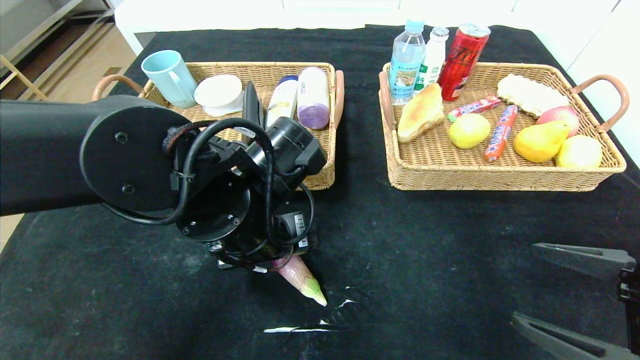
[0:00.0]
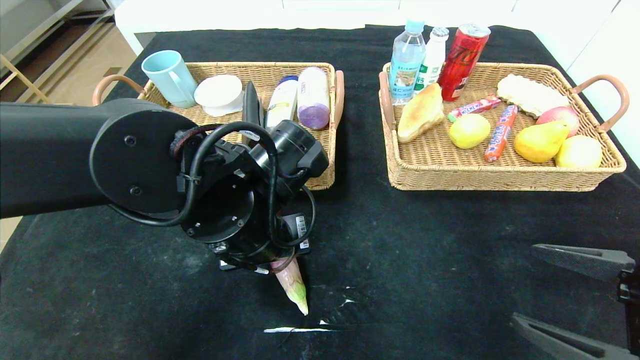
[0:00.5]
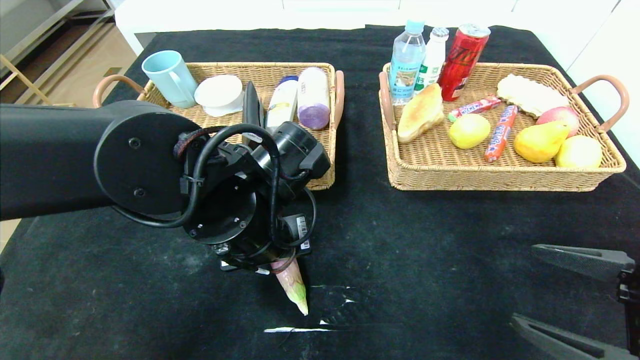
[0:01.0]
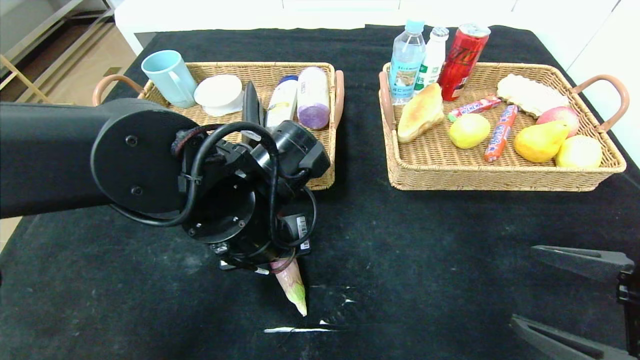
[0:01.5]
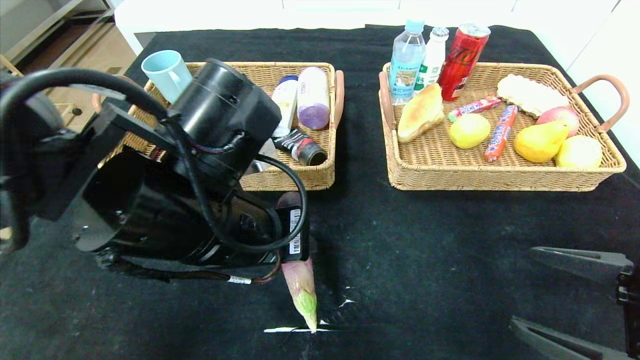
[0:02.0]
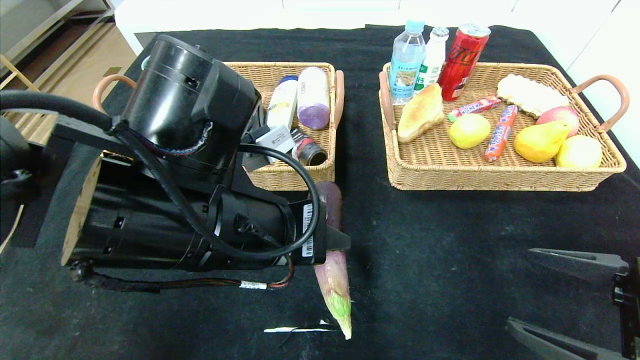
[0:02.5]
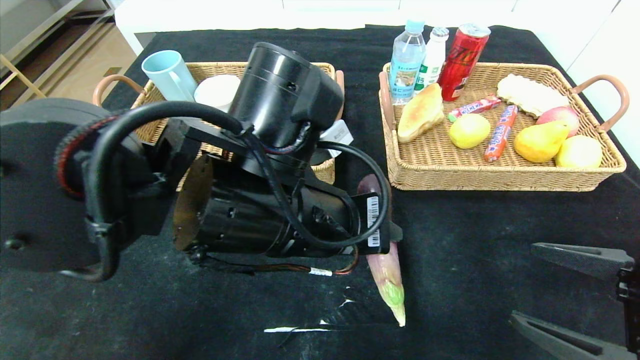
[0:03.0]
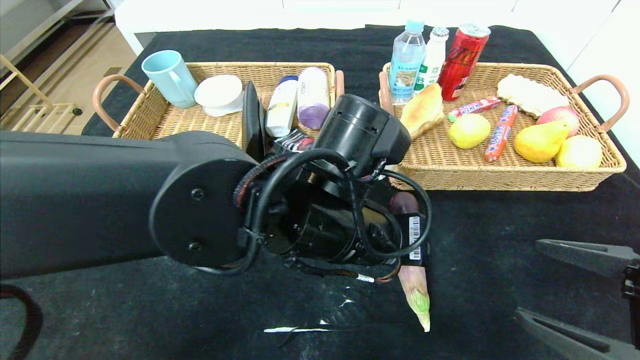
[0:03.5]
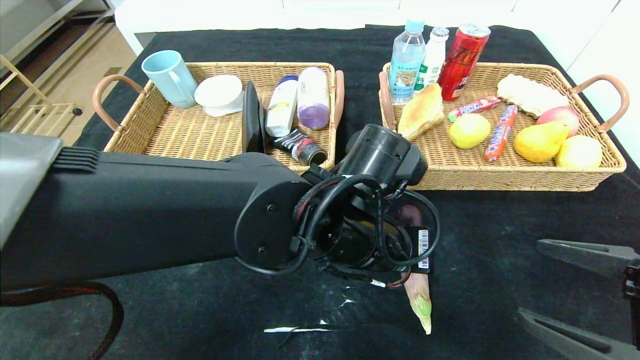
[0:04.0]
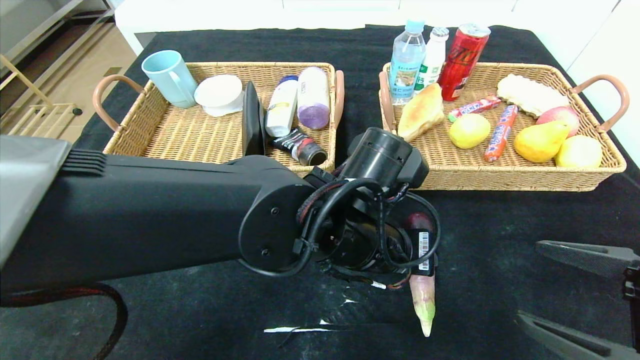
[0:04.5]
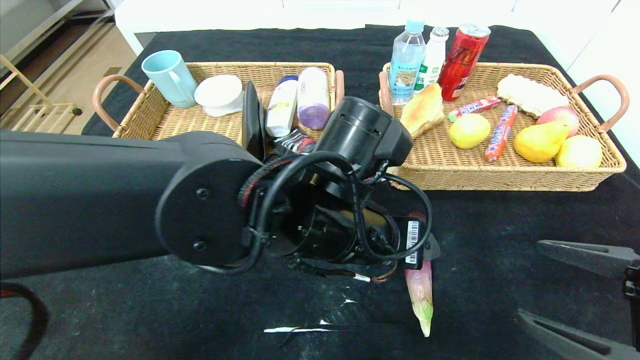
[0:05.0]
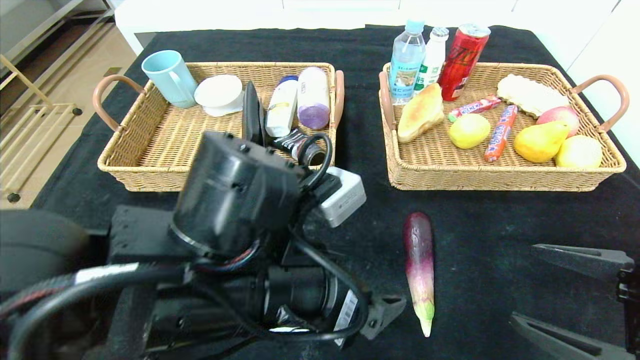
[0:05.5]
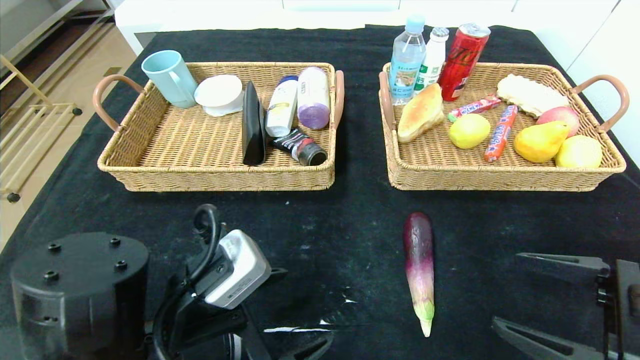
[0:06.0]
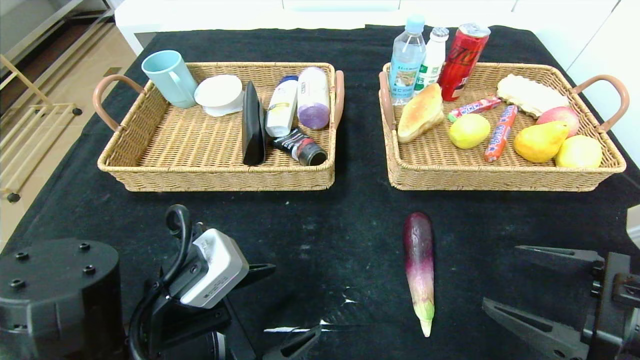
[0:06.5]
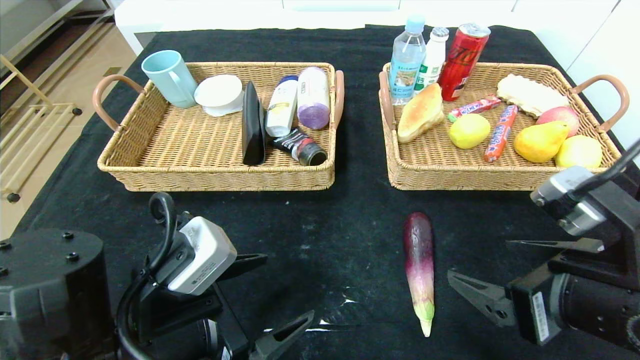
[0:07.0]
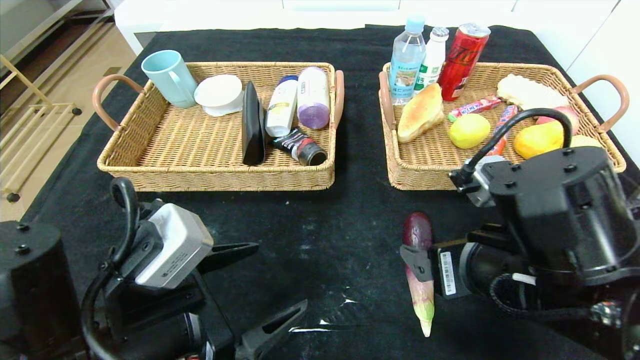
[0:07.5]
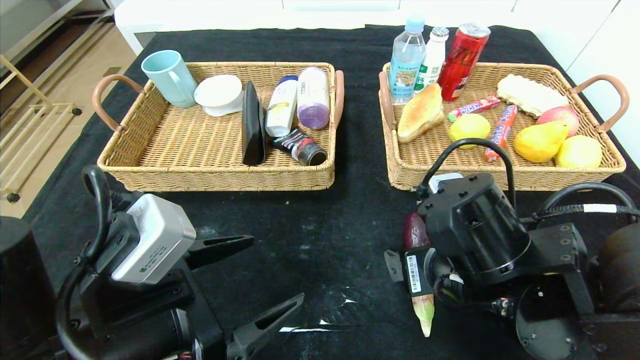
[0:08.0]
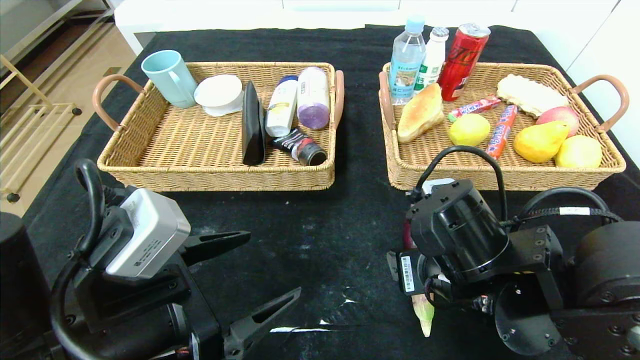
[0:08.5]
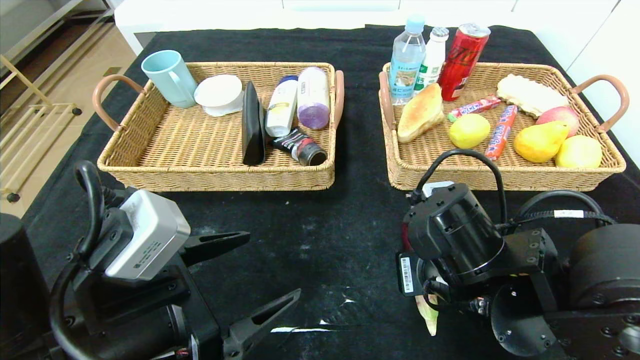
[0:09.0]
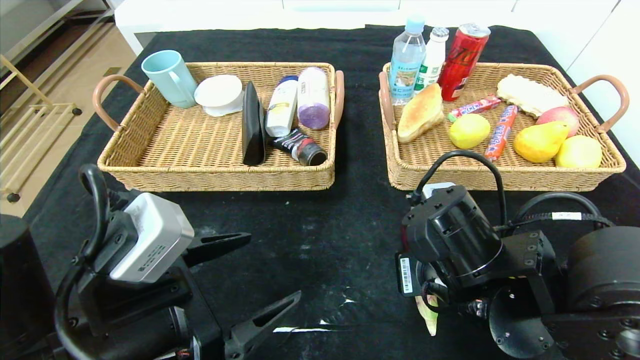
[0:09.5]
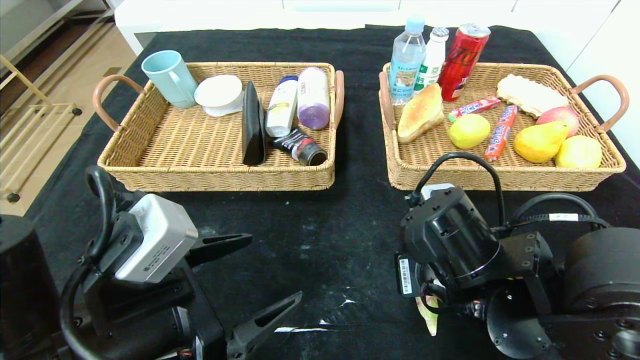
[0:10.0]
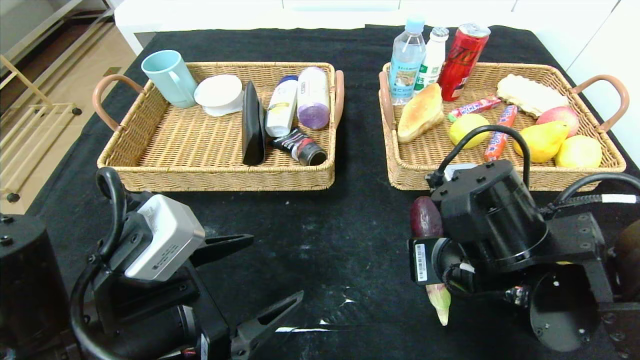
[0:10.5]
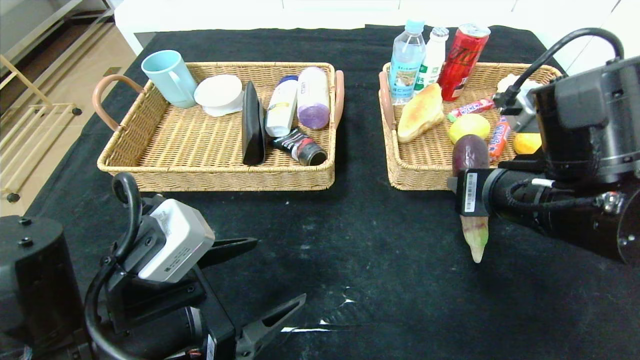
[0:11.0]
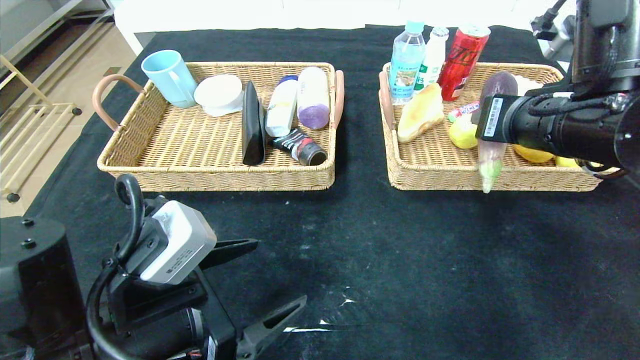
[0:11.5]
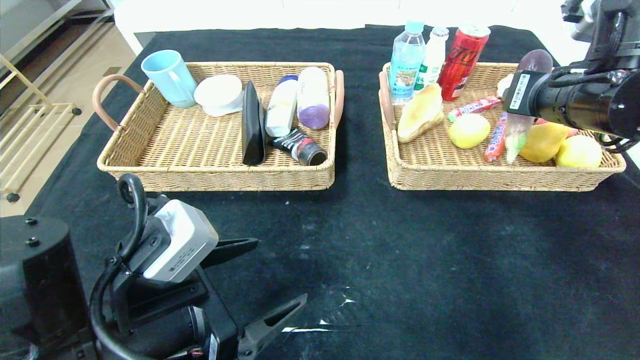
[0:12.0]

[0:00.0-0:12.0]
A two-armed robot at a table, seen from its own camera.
Step, 0:00.0 to 0:05.0: Place the eggplant in the center of the table.
0:00.0 to 0:02.0: The left gripper changes place by approximately 5 cm, and closes up.
0:02.0 to 0:04.0: The left gripper heads to the right and downward, covering about 15 cm.
0:04.0 to 0:06.0: The left gripper moves to the left and backward, roughly 20 cm, and opens its fingers.
0:06.0 to 0:08.0: The right gripper heads to the left and forward, covering approximately 15 cm.
0:08.0 to 0:10.0: The right gripper closes.
0:10.0 to 0:12.0: The right gripper travels upward, to the right and forward by some 20 cm.

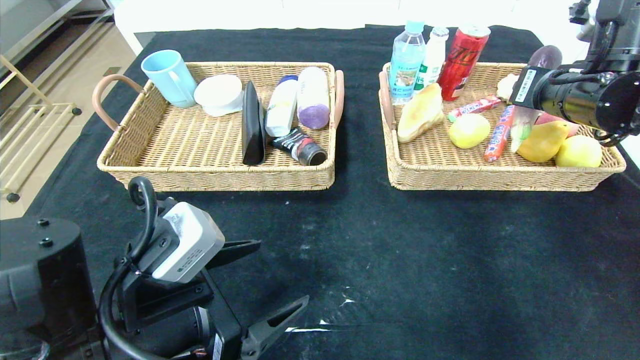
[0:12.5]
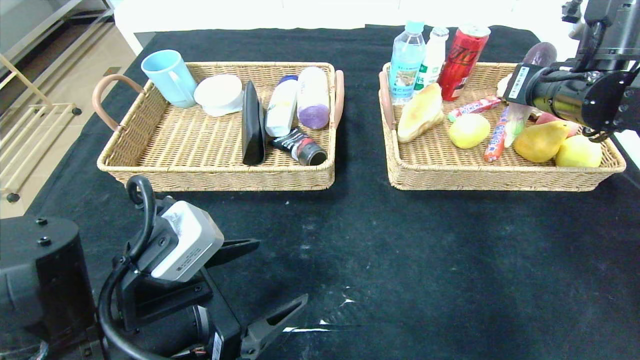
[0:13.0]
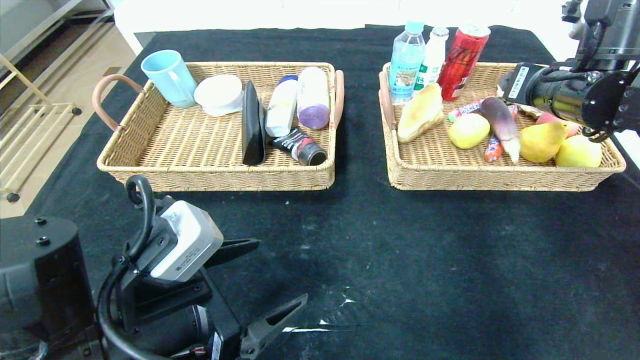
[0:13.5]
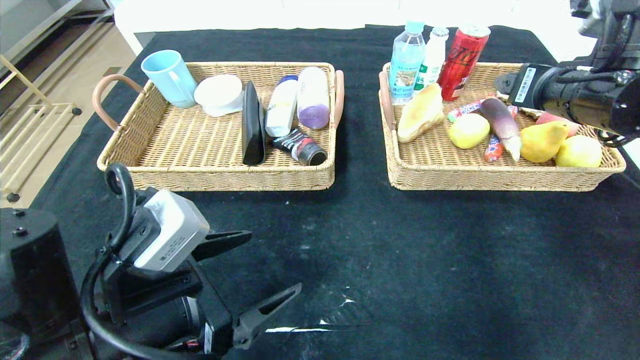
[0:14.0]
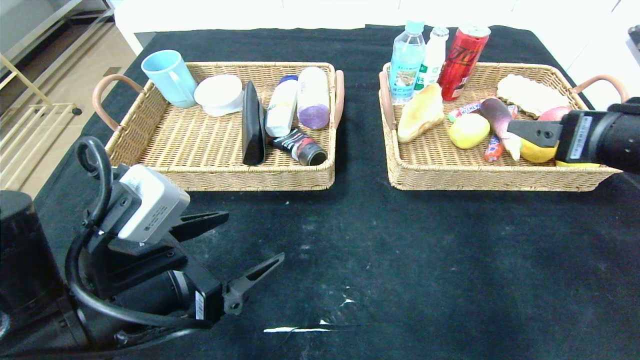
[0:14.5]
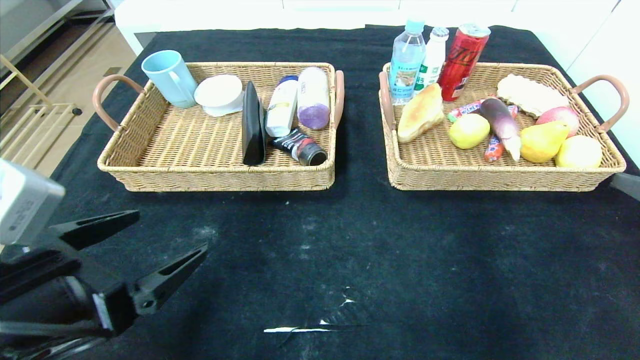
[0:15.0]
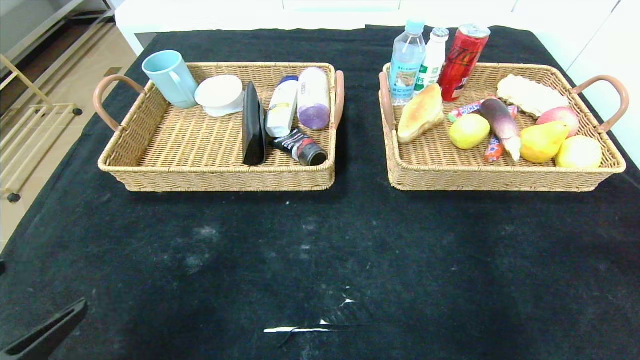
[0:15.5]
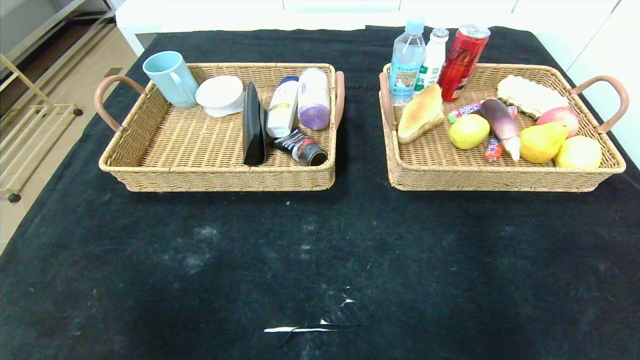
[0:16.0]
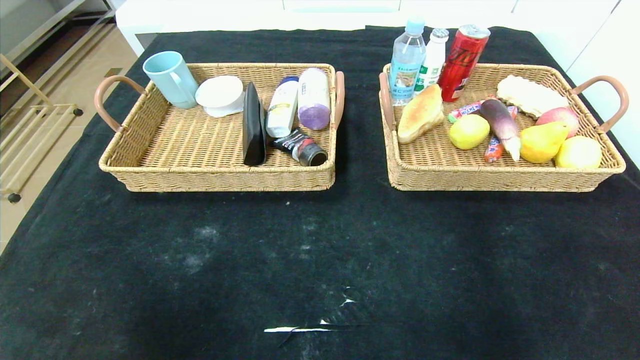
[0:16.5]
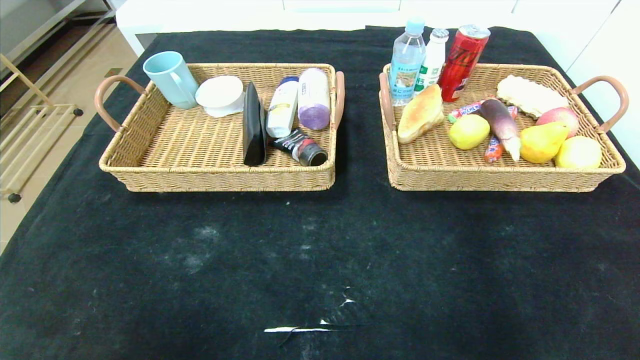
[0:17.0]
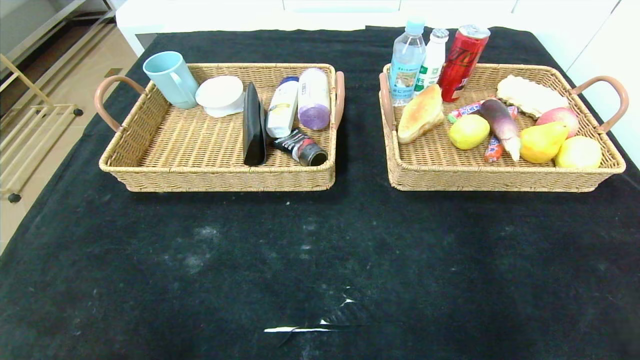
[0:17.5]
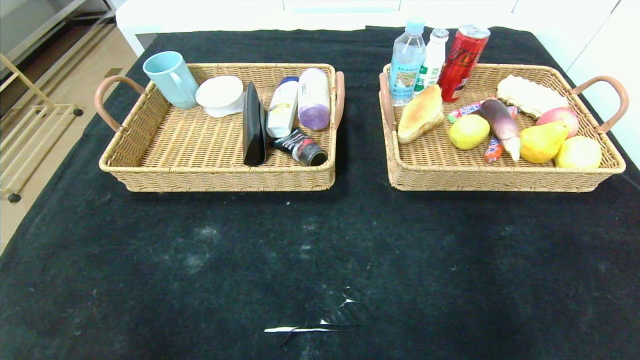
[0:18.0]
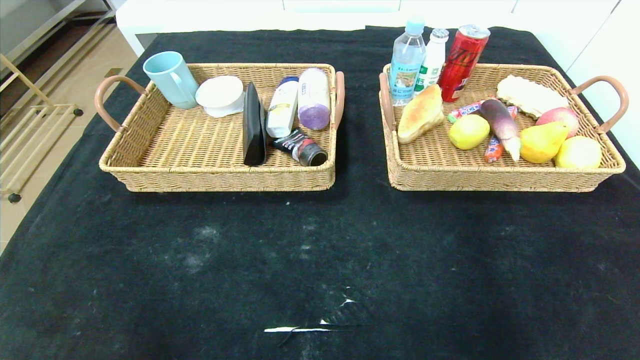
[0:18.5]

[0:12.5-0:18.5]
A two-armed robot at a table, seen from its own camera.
Step, 0:12.5 to 0:15.0: Pick up the eggplant and put it in the right basket.
0:12.5 to 0:14.5: The right gripper shifts approximately 10 cm backward, and opens.
0:14.5 to 0:16.5: The right gripper is displaced backward and downward by some 30 cm. Meanwhile the left gripper travels backward and to the left by some 25 cm.
